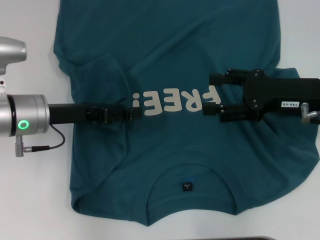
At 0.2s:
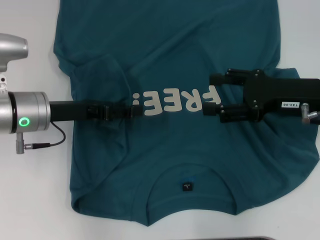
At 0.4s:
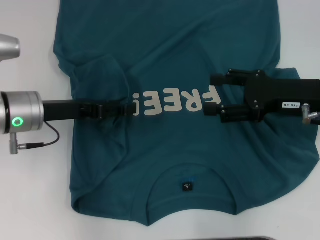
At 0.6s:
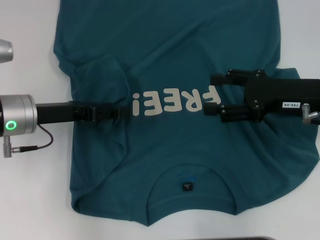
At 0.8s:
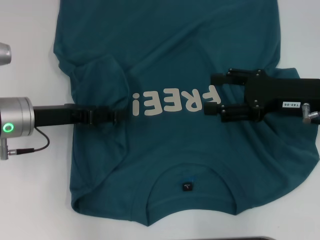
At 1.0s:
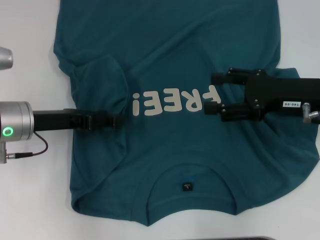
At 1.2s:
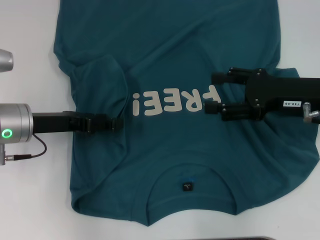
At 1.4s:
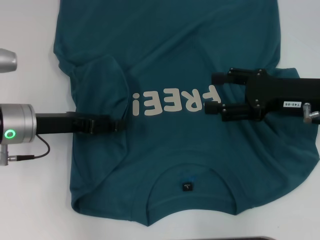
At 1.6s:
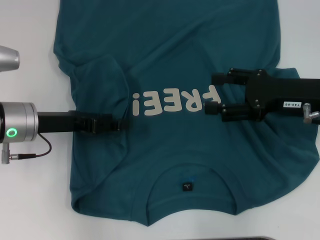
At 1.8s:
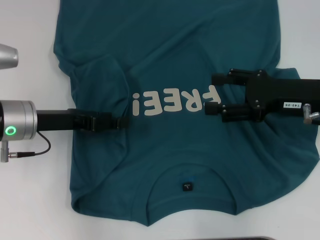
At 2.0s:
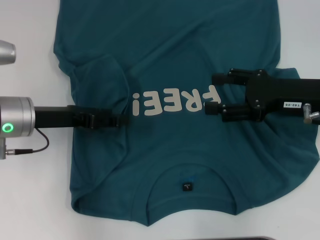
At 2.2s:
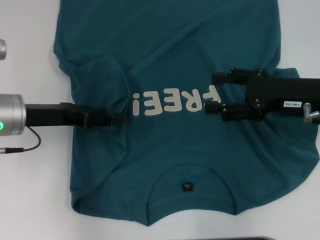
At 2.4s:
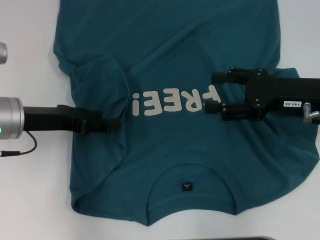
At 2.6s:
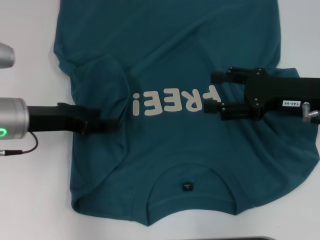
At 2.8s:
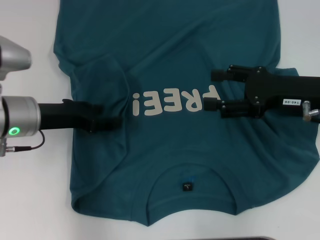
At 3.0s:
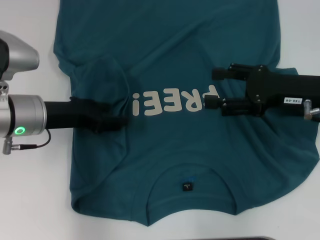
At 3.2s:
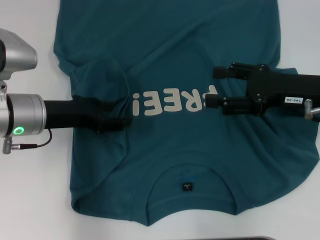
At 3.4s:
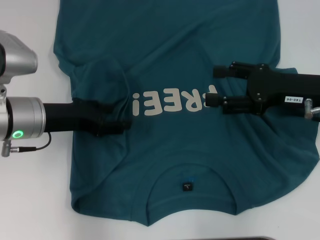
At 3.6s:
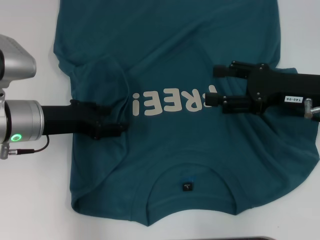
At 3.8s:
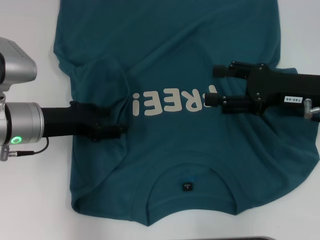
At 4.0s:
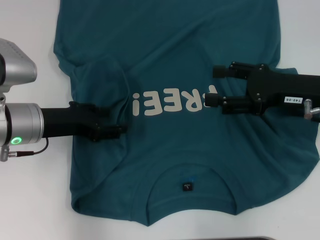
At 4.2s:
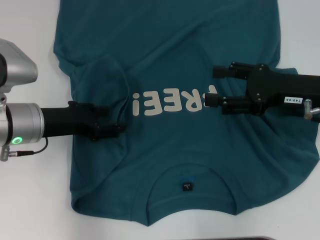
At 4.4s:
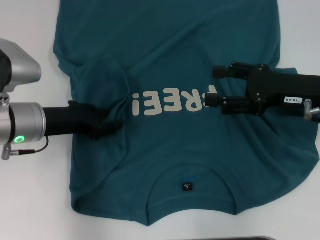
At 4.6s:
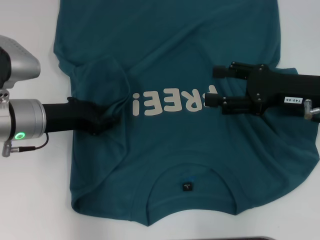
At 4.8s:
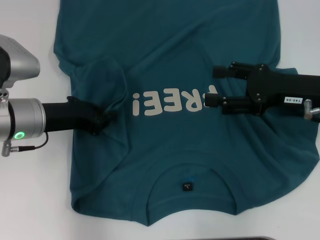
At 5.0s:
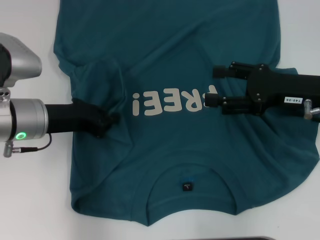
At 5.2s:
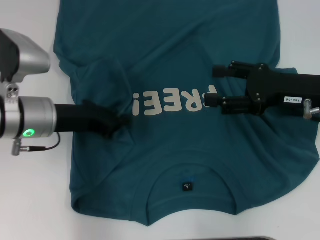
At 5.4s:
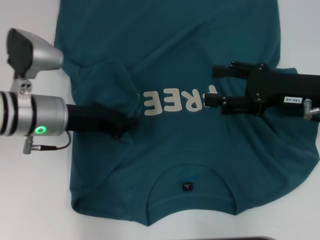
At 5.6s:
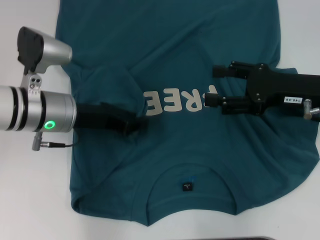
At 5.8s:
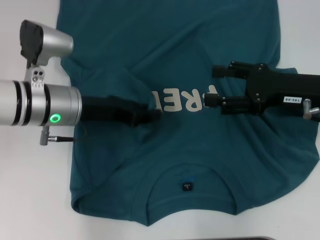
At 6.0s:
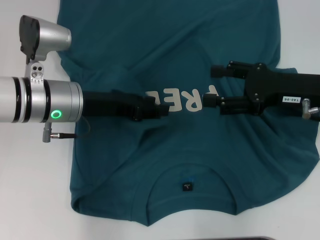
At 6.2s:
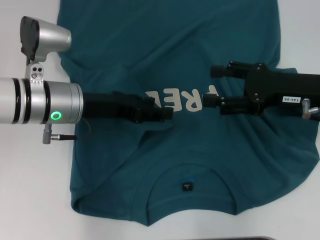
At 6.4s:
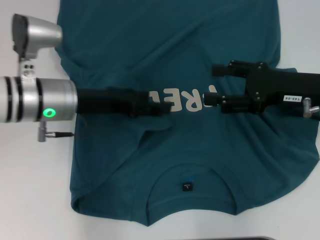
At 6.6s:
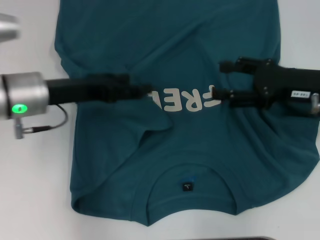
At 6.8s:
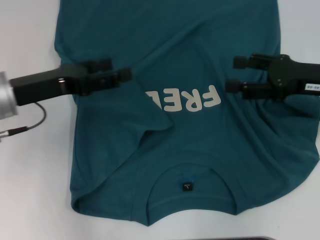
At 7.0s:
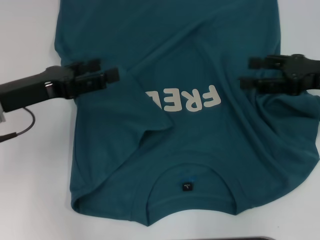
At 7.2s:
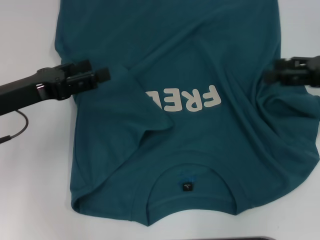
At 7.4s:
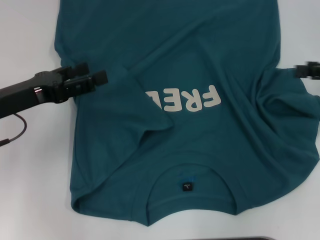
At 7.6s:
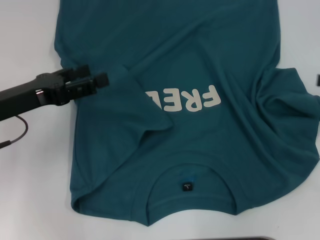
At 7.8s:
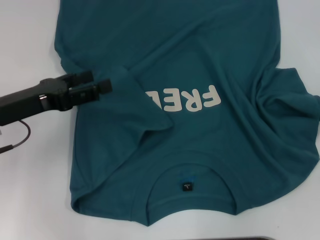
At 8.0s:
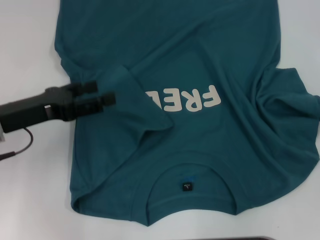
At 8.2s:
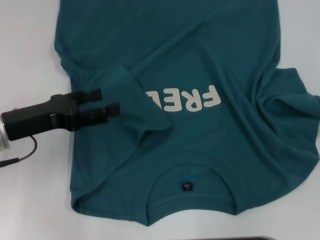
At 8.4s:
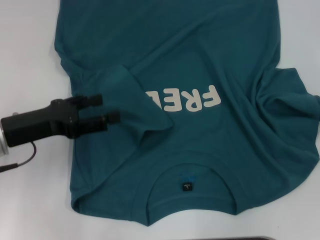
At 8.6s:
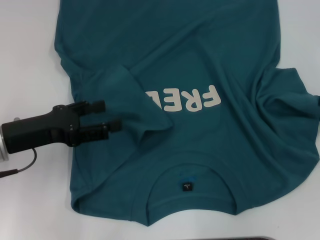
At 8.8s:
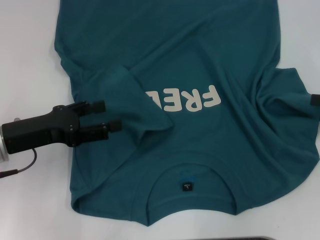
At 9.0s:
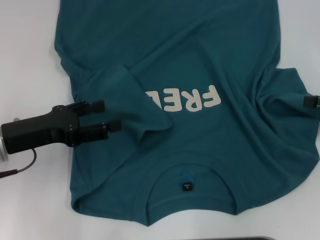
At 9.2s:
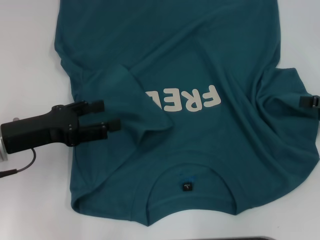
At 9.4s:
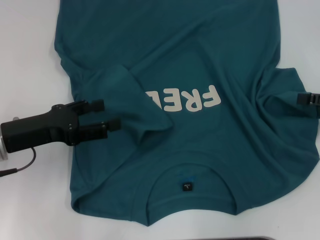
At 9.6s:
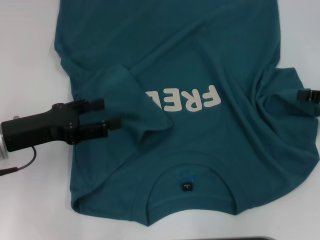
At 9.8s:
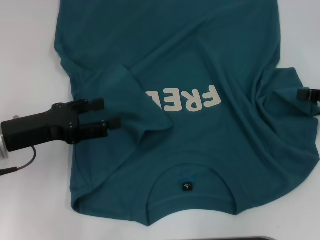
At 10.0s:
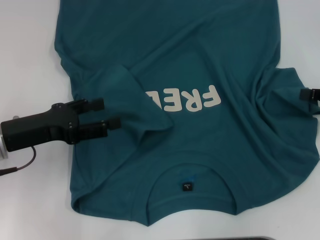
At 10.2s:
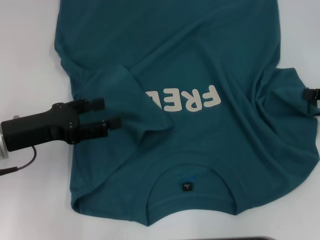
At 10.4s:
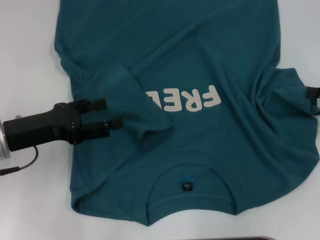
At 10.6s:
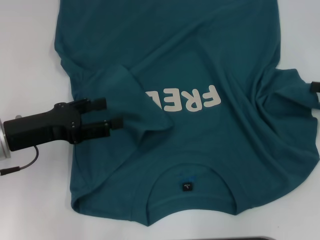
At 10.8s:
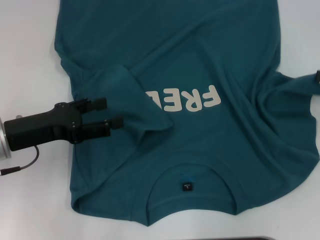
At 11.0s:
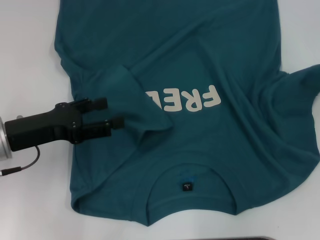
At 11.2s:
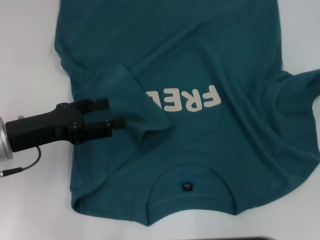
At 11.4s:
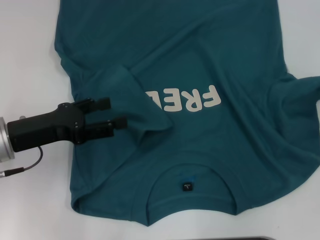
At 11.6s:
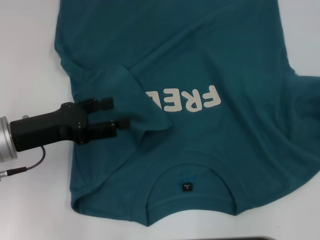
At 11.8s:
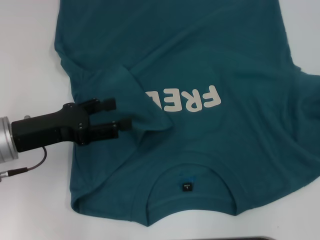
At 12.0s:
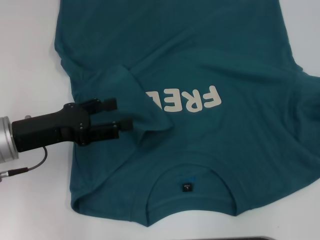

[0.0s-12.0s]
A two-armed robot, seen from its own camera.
Step, 0.0s to 6.2s: Fold the bottom left sleeve with your left hand.
0.0s to 1.6s: The grippers make only small movements.
1.6s to 3.0s: The grippers stay close to where they were, moving slightly.
3.0s to 4.4s: Both grippers stay about where they are.
4.4s to 6.0s: The left gripper moves approximately 5 cm, and closes, then reopens.
6.0s to 7.6s: The left gripper shifts some 10 cm to the left, and opens up; the right gripper goes about 15 cm to the right.
7.6s to 9.0s: There are only small adjustments of the grippers.
10.4s to 12.0s: The right gripper moves to the right and backward, about 10 cm.

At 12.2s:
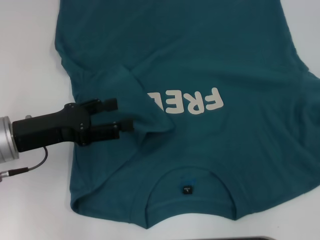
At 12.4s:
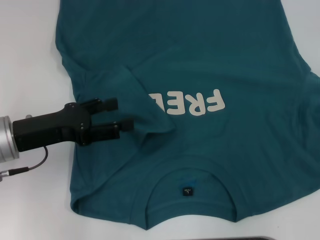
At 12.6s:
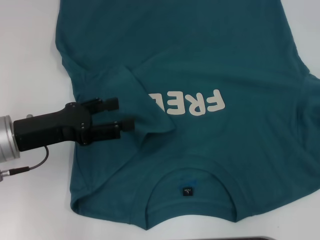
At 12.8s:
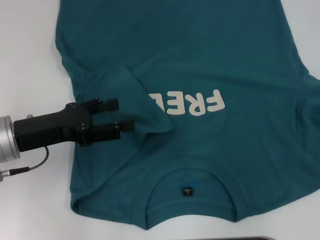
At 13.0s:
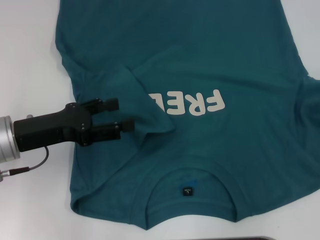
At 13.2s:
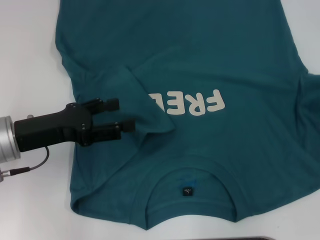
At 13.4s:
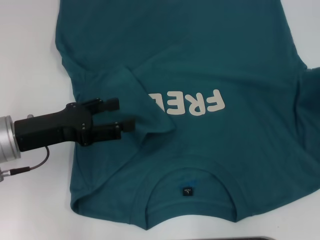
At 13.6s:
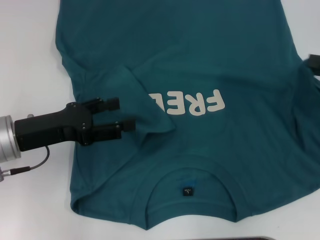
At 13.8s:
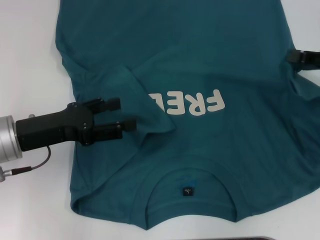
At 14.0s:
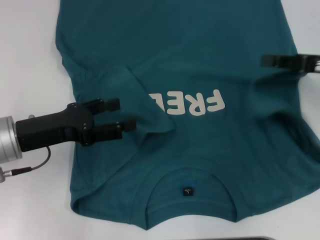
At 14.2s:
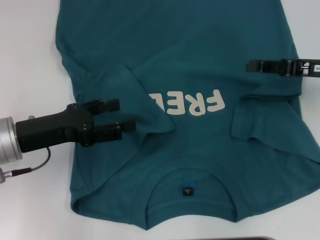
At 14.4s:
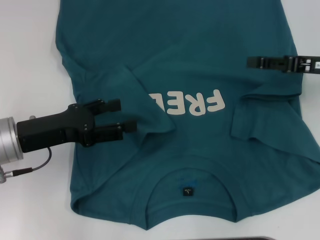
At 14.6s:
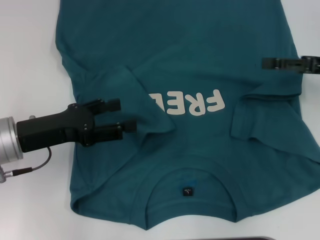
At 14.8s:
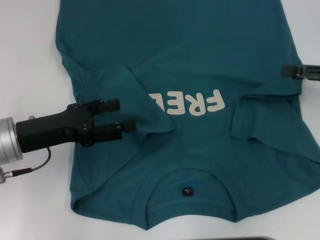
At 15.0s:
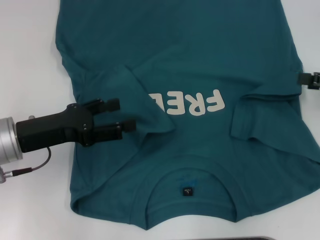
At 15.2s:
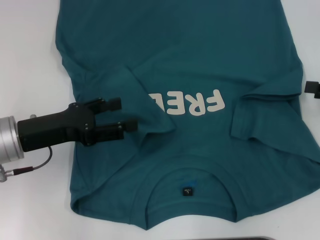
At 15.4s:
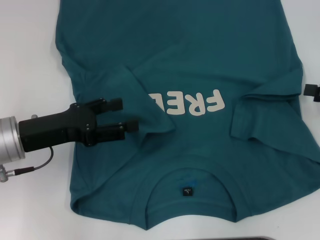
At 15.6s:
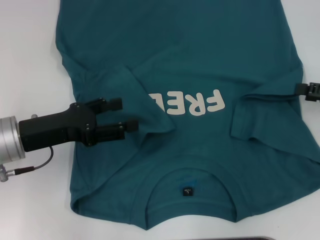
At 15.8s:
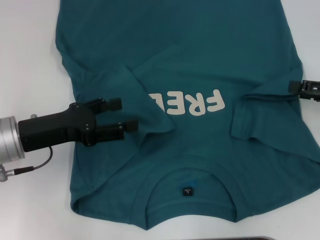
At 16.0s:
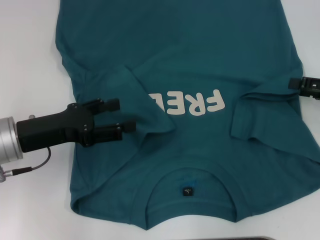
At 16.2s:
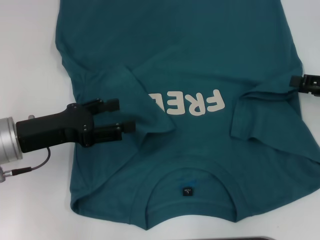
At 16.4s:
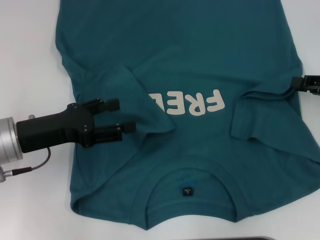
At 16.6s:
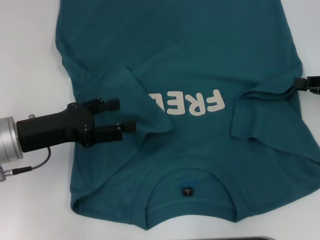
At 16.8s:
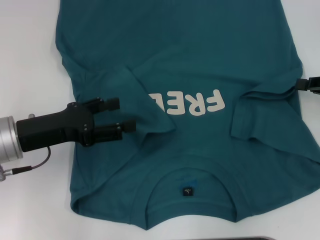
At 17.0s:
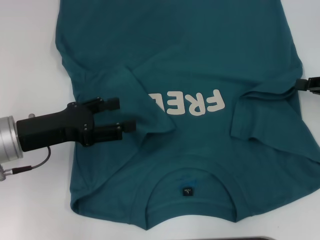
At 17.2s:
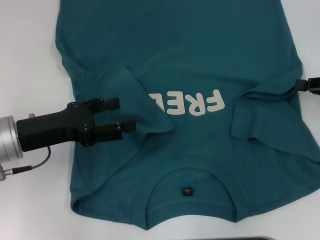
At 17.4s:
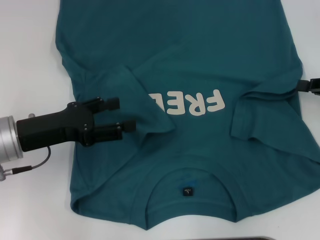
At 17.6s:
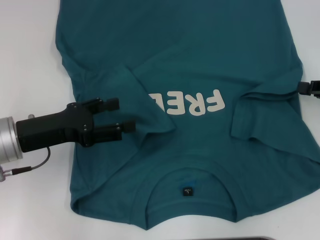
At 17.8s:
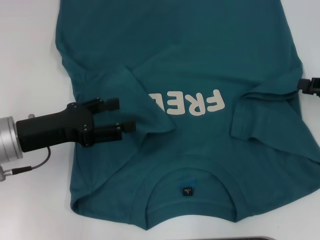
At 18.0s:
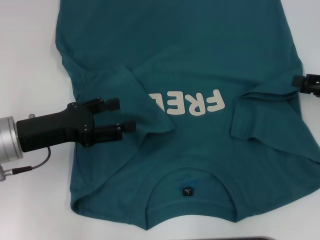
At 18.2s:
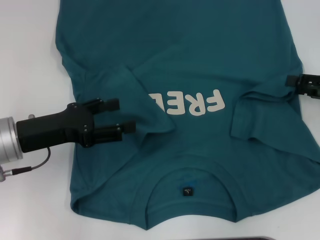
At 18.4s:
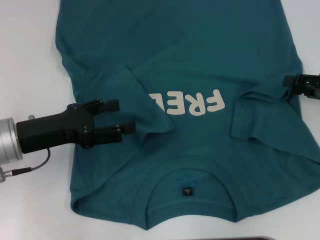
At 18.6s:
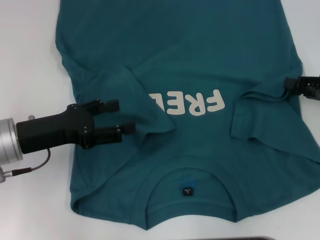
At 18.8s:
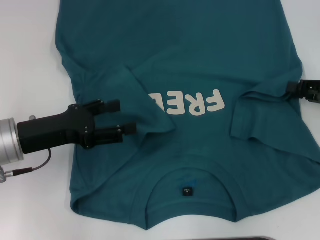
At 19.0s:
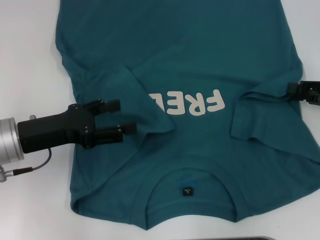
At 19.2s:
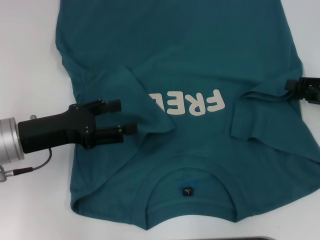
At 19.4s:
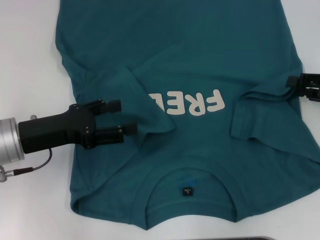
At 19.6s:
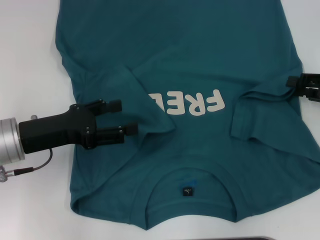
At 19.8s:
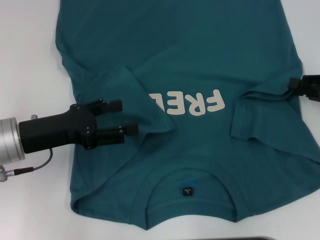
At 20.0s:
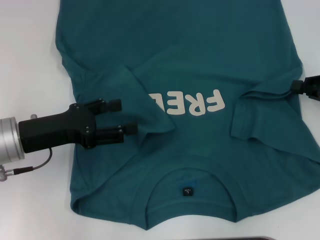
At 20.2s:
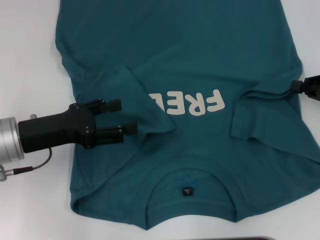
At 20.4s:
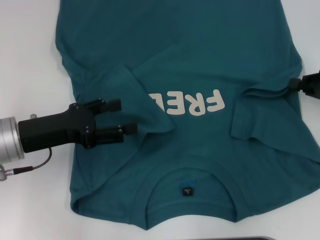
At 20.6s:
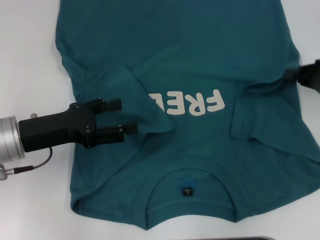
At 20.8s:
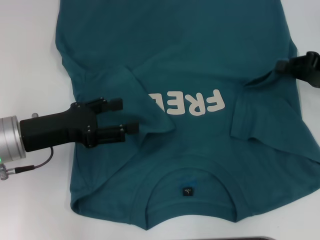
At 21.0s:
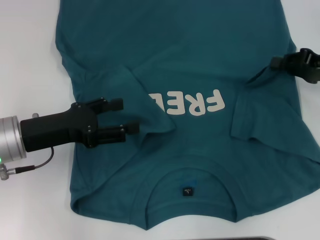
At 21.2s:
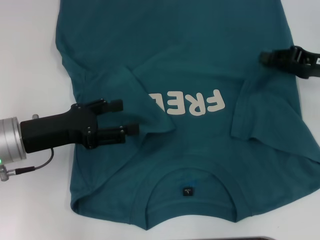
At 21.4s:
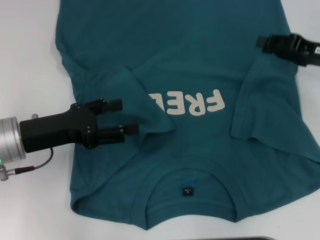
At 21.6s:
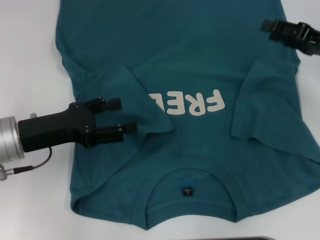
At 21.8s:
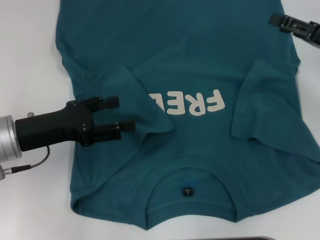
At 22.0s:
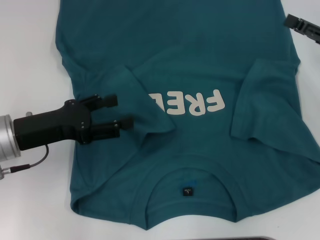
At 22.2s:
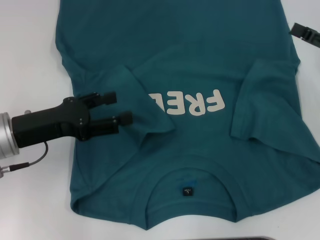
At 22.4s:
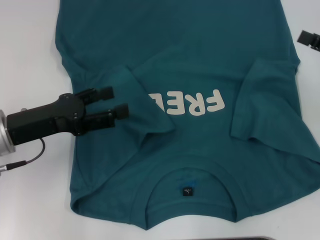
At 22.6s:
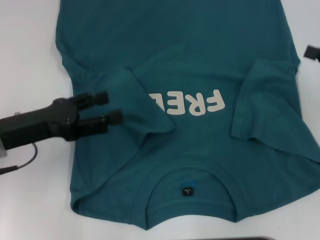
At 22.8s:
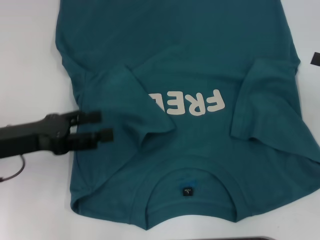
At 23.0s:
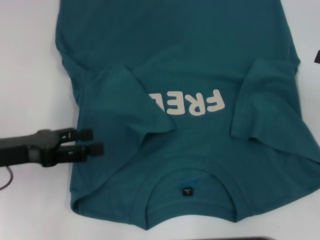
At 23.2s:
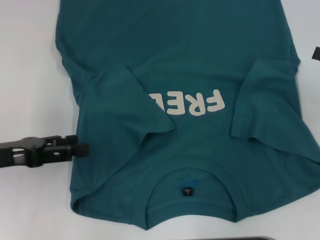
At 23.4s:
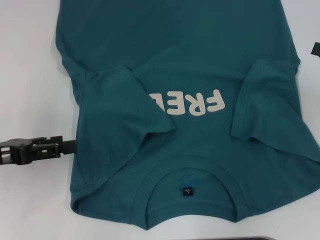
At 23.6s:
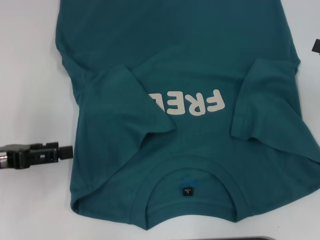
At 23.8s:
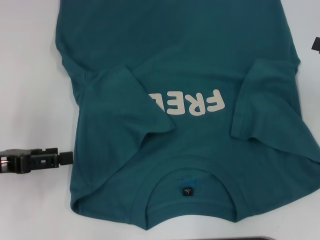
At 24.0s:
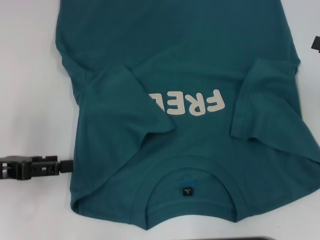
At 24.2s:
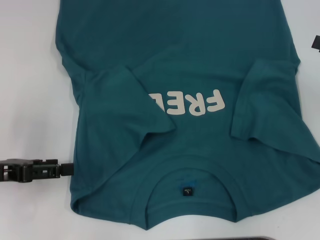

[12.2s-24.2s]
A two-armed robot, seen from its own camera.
Step, 12.2s to 21.2s: Fold the bottom right sleeve to the right.
12.2s to 13.8s: The right gripper goes approximately 15 cm to the left and forward.
13.8s to 15.2s: The right gripper moves approximately 5 cm, and opens.
15.2s to 16.6s: The right gripper closes.
18.2s to 19.8s: The grippers move only a little.
19.8s to 21.2s: The right gripper shifts by some 5 cm.
21.2s to 22.6s: The right gripper travels backward and to the right by some 10 cm, and opens up.
22.6s to 24.2s: The left gripper heads to the left, covering some 5 cm.
